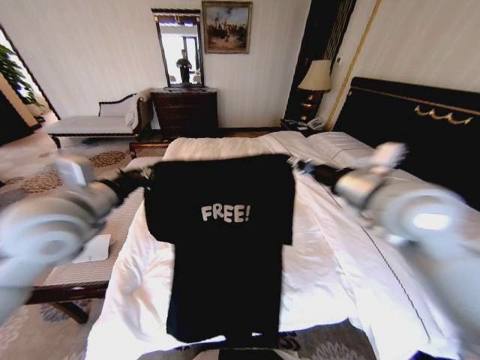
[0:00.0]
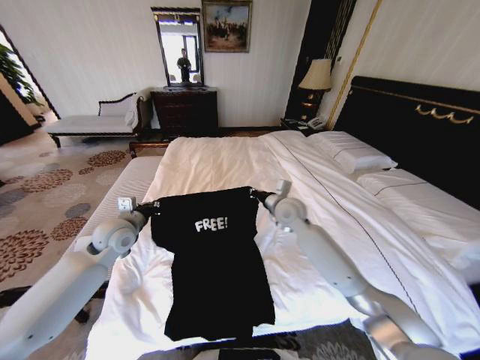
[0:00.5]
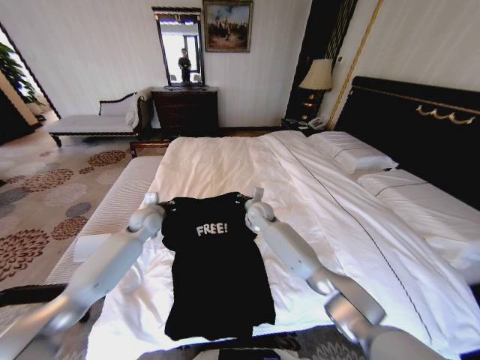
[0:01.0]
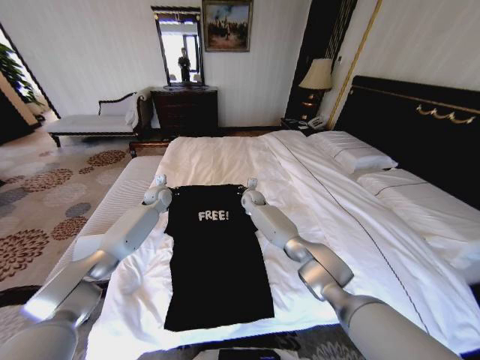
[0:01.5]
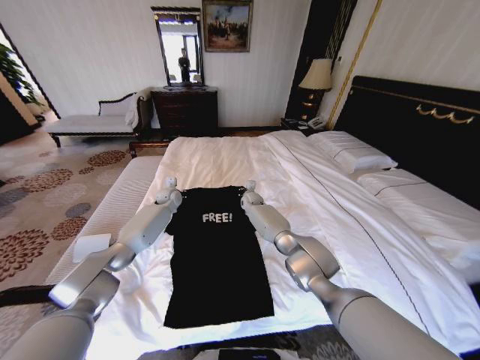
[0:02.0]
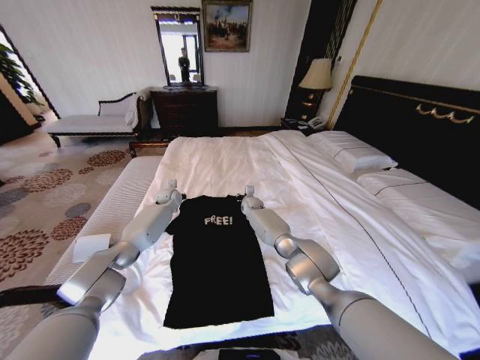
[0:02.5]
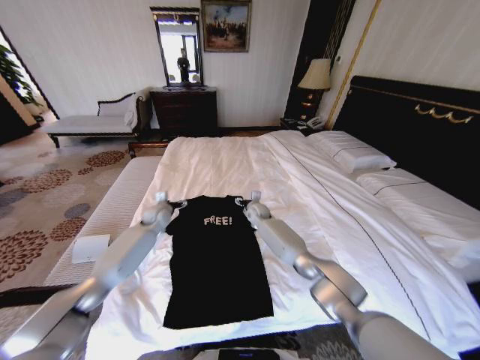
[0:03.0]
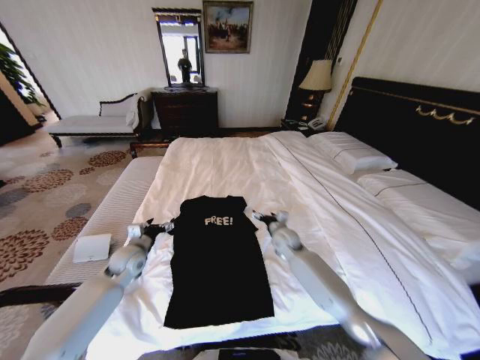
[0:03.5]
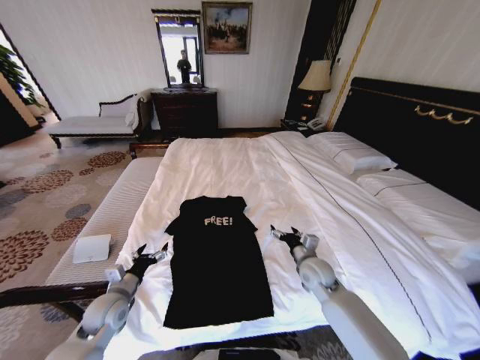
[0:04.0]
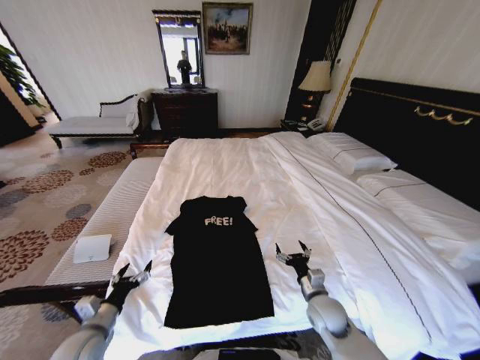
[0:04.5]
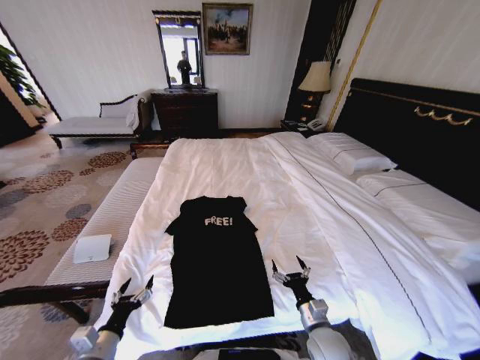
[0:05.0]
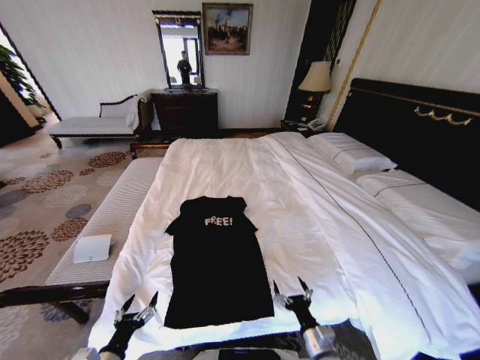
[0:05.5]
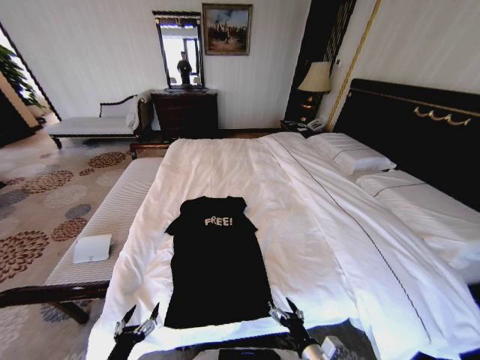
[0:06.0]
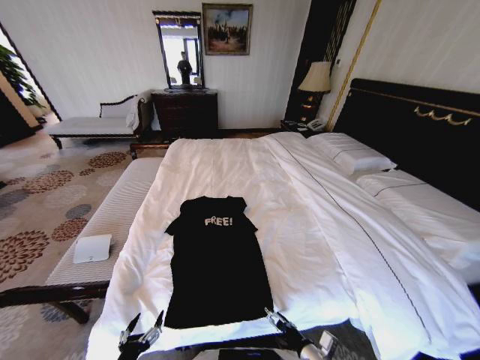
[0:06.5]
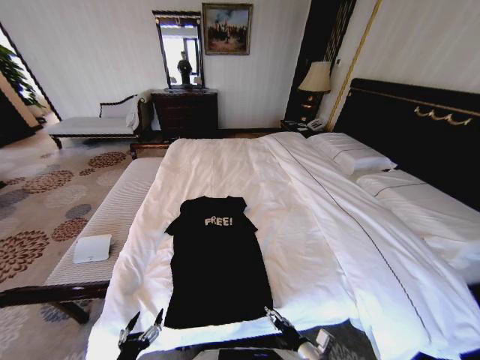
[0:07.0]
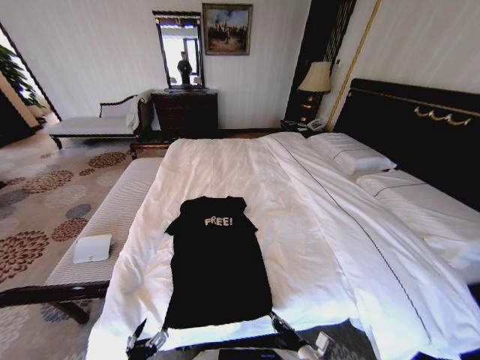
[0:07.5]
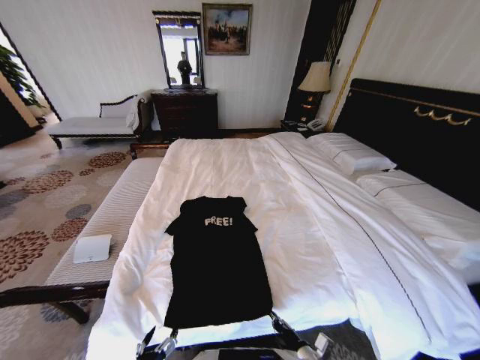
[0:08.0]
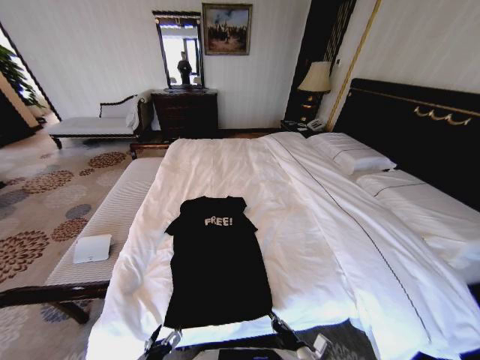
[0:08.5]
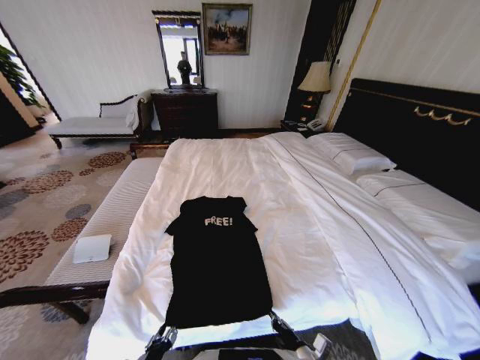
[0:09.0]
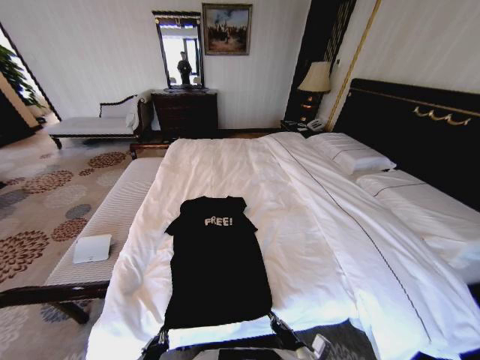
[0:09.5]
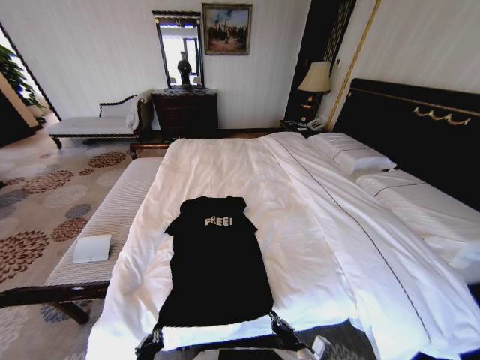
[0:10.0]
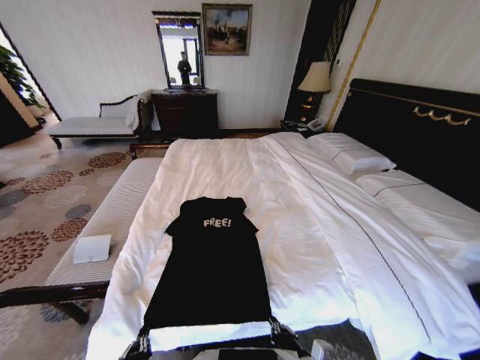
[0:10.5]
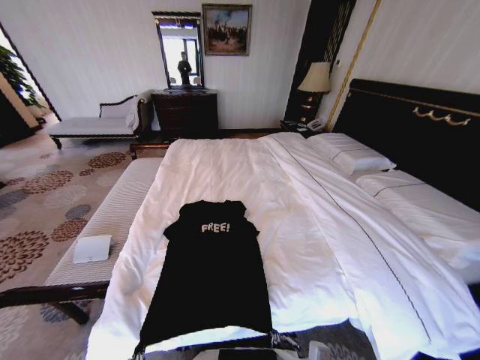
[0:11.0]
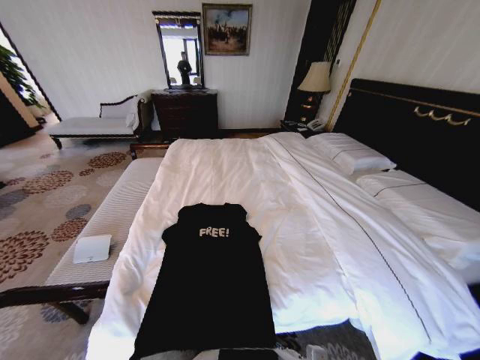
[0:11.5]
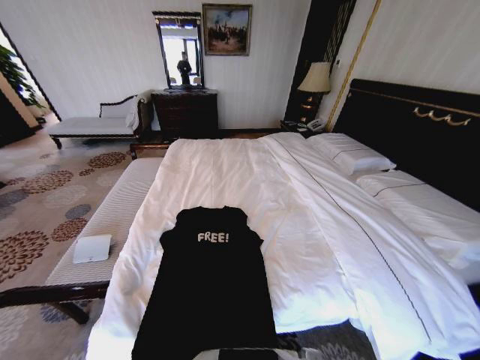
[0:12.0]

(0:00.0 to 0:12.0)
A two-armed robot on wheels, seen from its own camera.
Task of the whole recording: Fold the clothes on the bed.
0:00.0 - 0:02.0: The left gripper goes approximately 40 cm forward and downward. The right gripper goes roughly 50 cm forward, downward and to the left.
0:02.0 - 0:04.0: The left gripper is displaced backward by approximately 35 cm, and opens up. The right gripper moves backward and to the right, some 35 cm, and opens.
0:04.0 - 0:06.0: The grippers both shift backward by roughly 25 cm.
0:06.0 - 0:08.0: The right gripper closes up. Meanwhile the left gripper shifts some 5 cm to the right.
0:08.0 - 0:10.0: The left gripper closes.
0:10.0 - 0:12.0: The left gripper goes about 10 cm backward; the right gripper travels upward by about 10 cm.

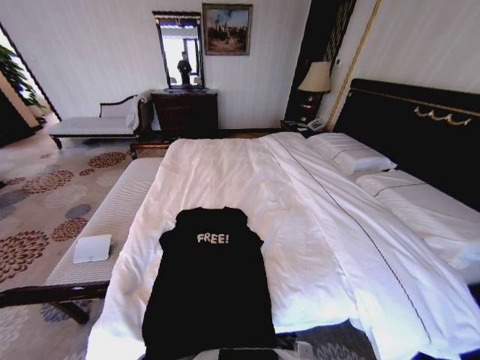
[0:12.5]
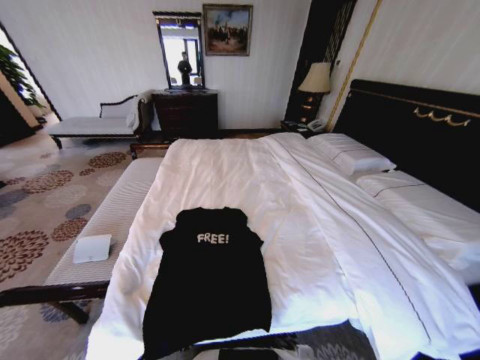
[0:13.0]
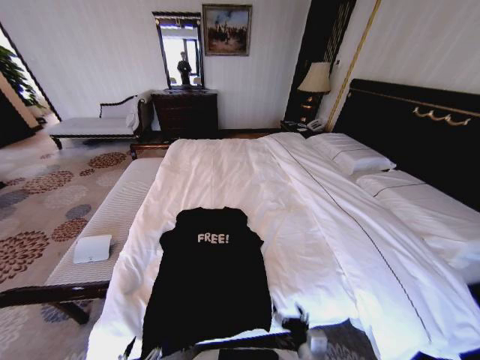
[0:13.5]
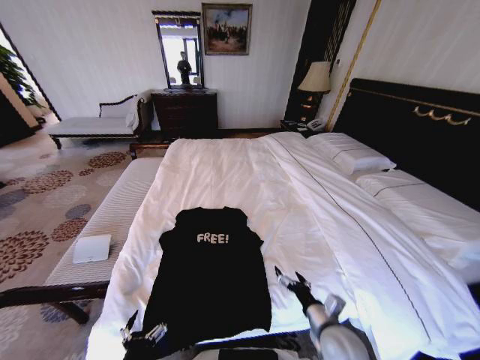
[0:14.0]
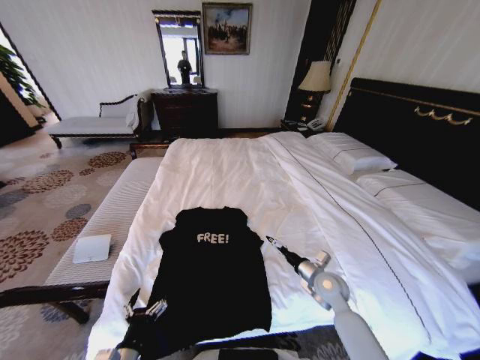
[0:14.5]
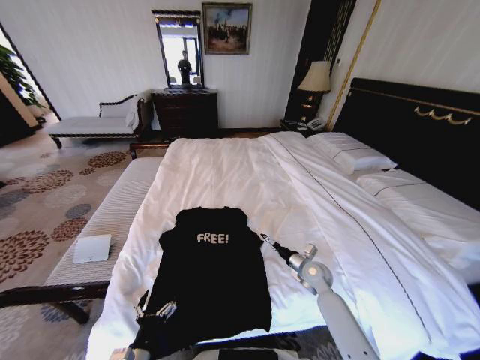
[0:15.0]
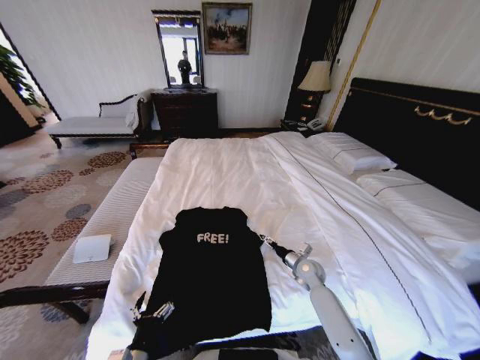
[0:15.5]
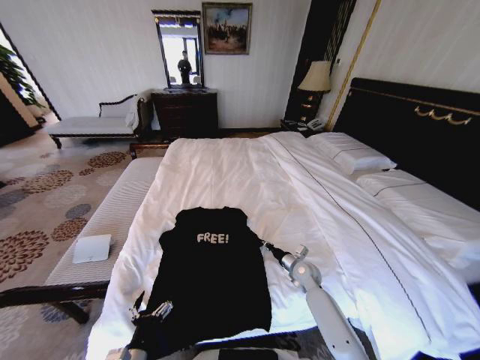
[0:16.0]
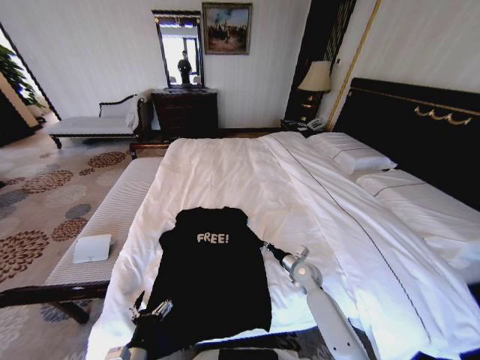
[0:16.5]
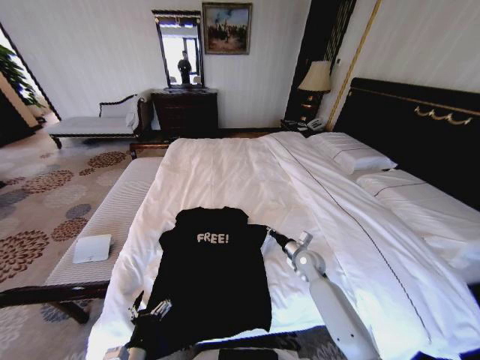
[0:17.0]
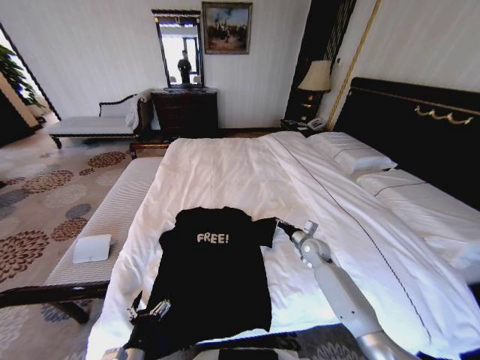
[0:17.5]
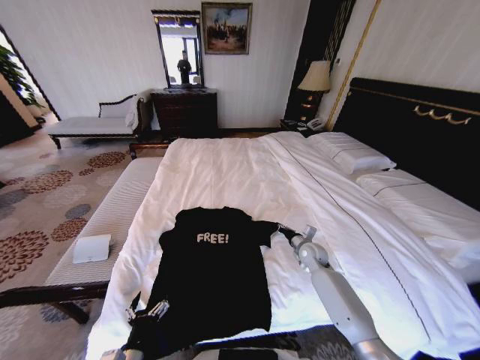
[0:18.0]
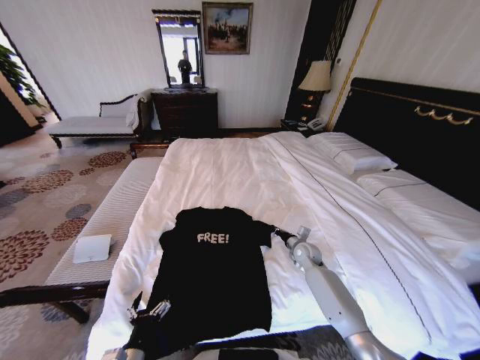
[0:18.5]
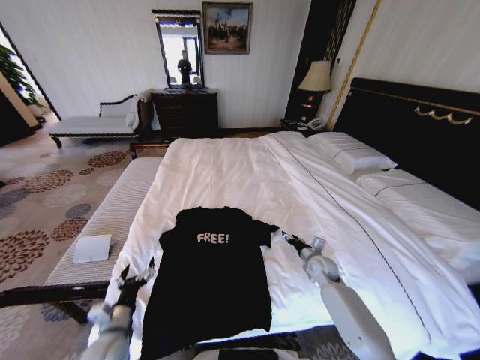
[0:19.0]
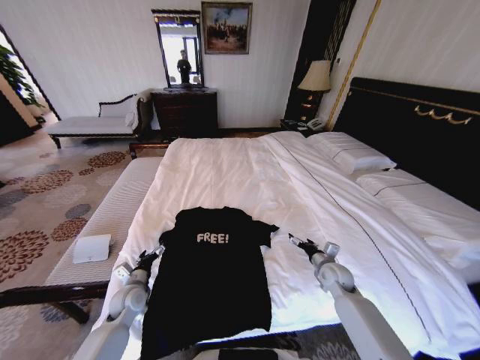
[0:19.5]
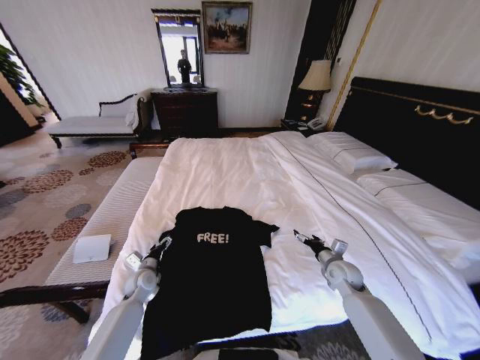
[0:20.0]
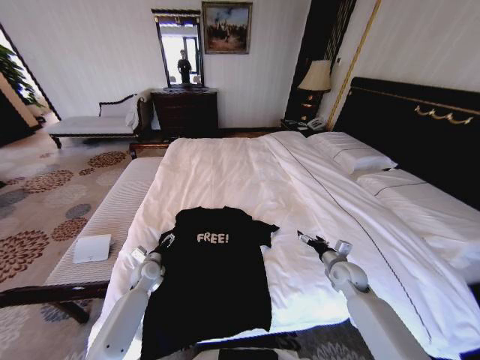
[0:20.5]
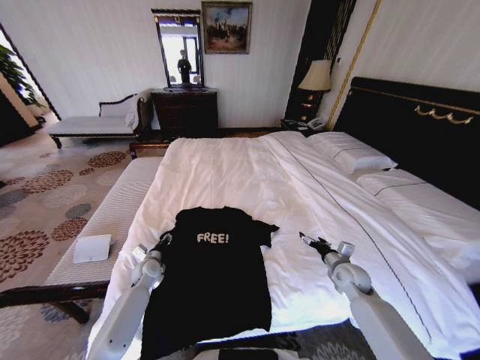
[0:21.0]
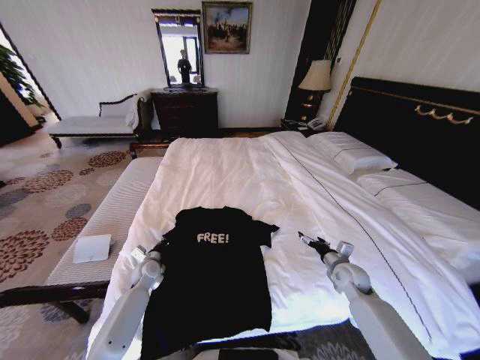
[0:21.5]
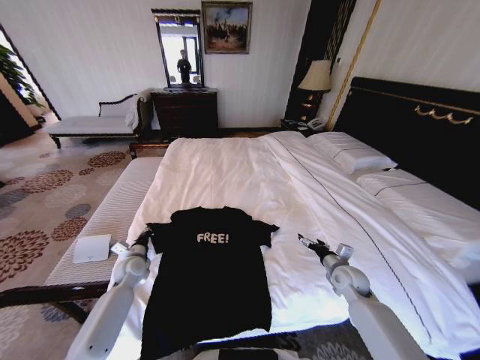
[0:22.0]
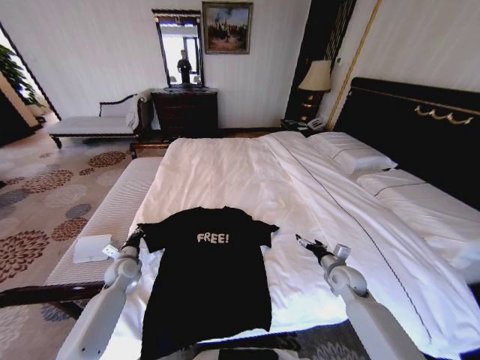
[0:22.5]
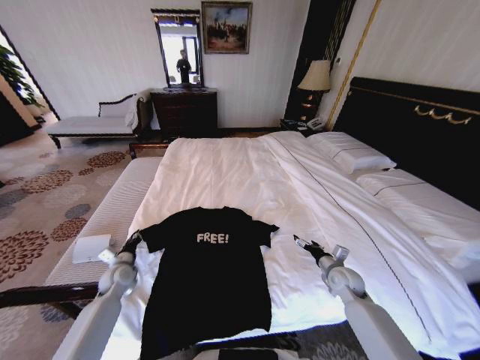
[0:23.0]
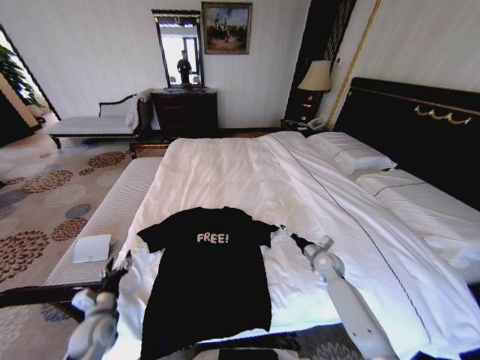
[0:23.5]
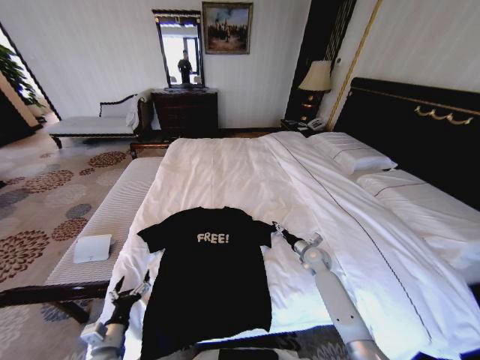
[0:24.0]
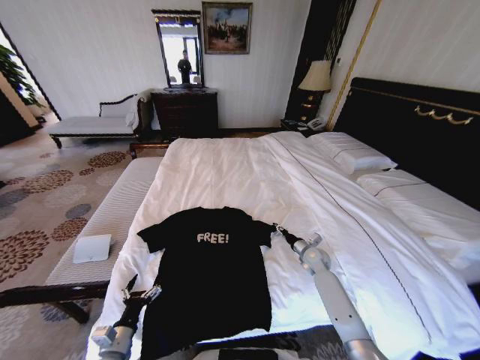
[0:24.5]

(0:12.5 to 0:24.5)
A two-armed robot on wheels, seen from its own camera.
Task of the whole recording: Fold the clothes on the bed.
0:12.5 - 0:14.5: The left gripper heads forward, covering roughly 10 cm, and opens, while the right gripper moves forward and to the right, roughly 25 cm, and opens up.
0:14.5 - 0:16.5: The right gripper is displaced downward and forward by about 10 cm, and closes its fingers.
0:16.5 - 0:18.5: The right gripper travels forward by roughly 5 cm.
0:18.5 - 0:20.5: The right gripper shifts some 15 cm backward and to the right, and opens. The left gripper travels forward by some 30 cm.
0:20.5 - 0:22.5: The left gripper travels to the left by approximately 5 cm, and closes its fingers.
0:22.5 - 0:24.5: The right gripper goes approximately 10 cm forward, and closes up. The left gripper is displaced backward by about 25 cm, and opens its fingers.

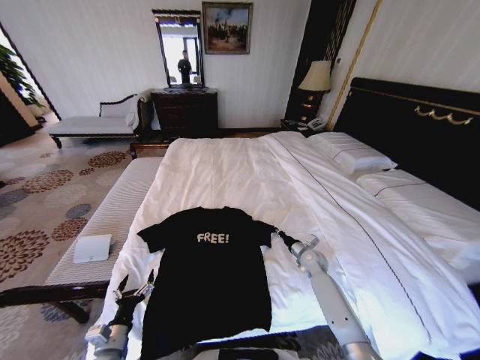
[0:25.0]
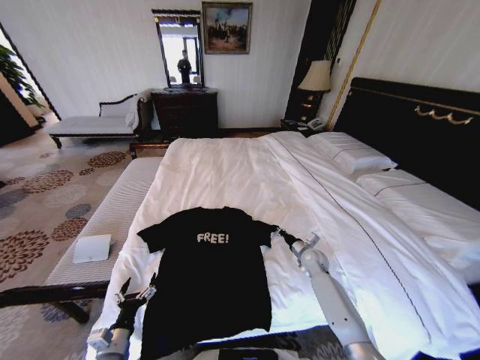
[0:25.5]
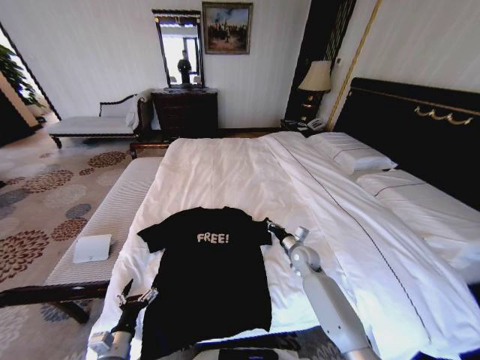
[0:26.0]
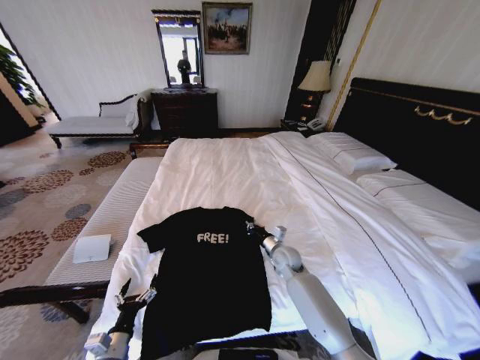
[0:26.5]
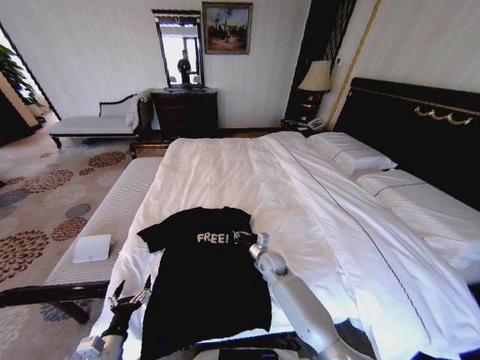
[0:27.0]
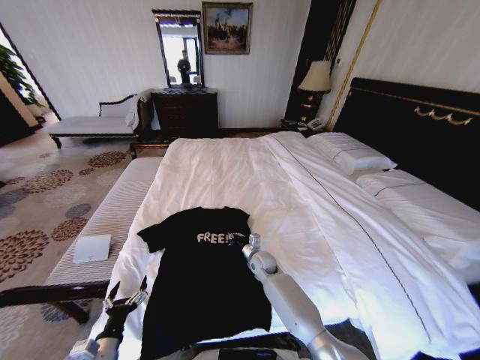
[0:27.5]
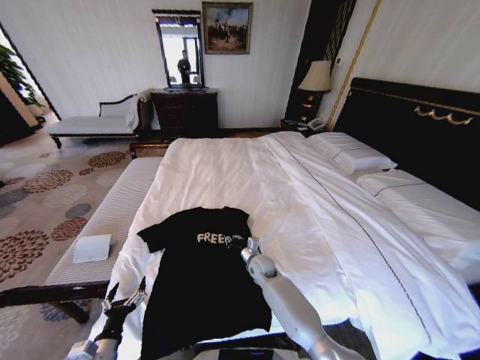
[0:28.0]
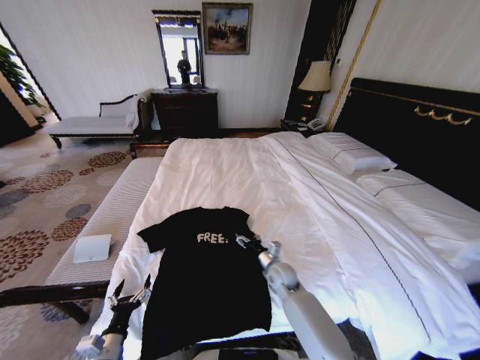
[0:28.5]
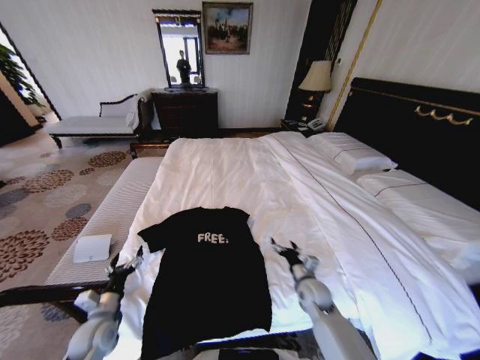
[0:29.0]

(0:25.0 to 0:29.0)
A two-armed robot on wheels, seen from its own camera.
Task of the whole recording: Fold the clothes on the bed.
0:25.0 - 0:27.0: The right gripper moves to the left, approximately 15 cm.
0:27.0 - 0:29.0: The right gripper goes roughly 15 cm to the right and backward, and opens its fingers, while the left gripper shifts roughly 10 cm forward.
